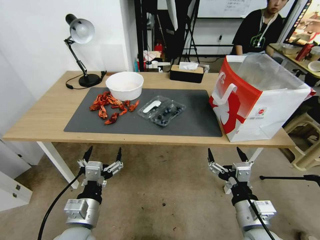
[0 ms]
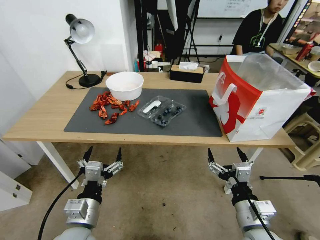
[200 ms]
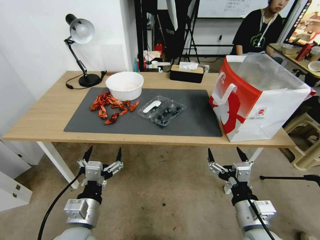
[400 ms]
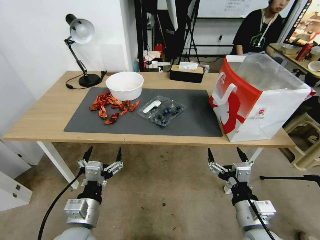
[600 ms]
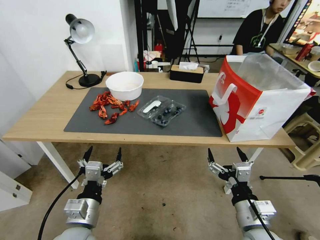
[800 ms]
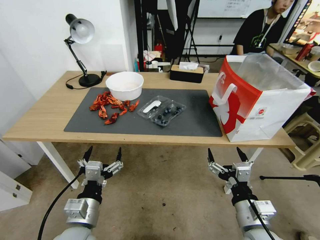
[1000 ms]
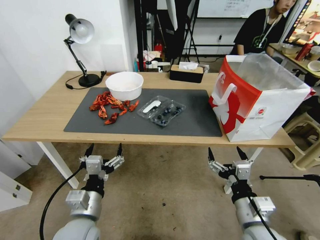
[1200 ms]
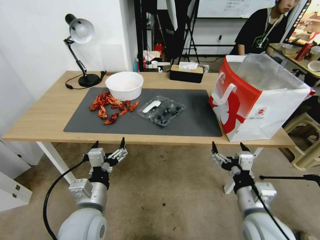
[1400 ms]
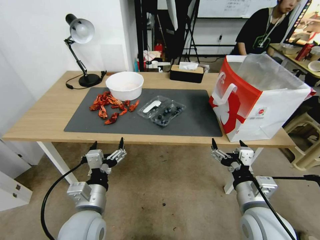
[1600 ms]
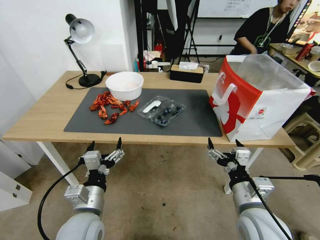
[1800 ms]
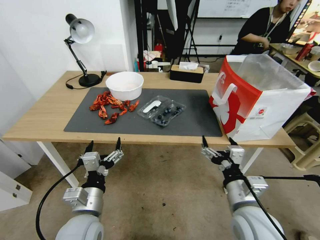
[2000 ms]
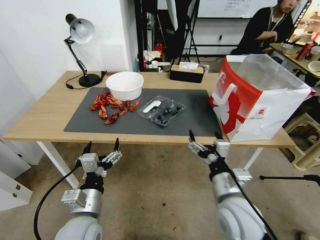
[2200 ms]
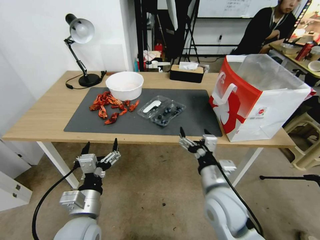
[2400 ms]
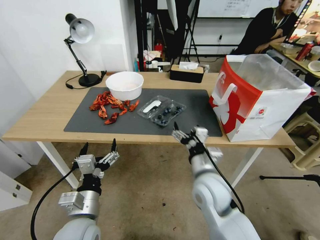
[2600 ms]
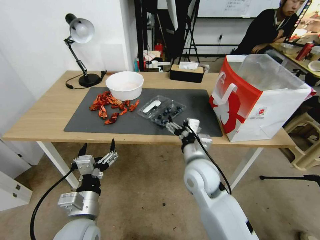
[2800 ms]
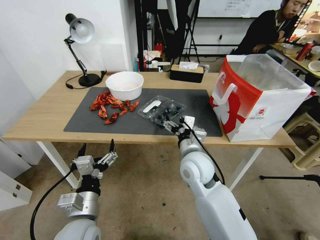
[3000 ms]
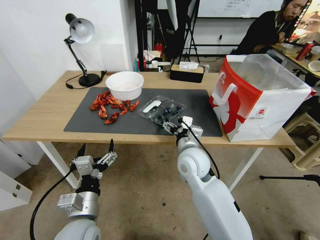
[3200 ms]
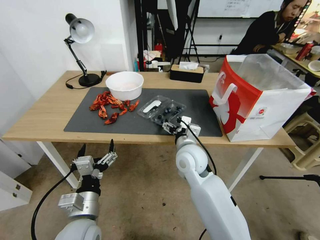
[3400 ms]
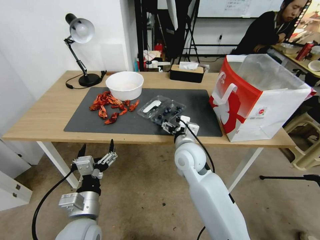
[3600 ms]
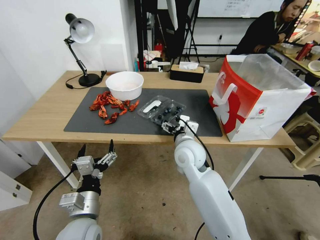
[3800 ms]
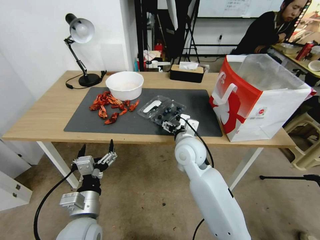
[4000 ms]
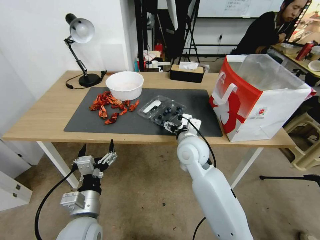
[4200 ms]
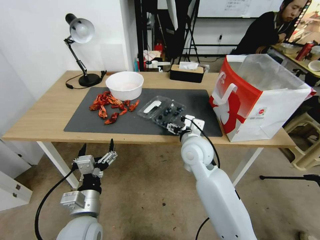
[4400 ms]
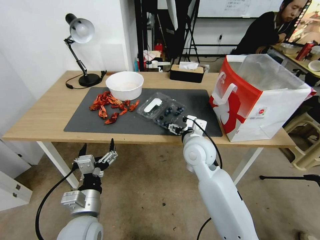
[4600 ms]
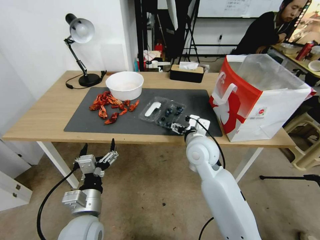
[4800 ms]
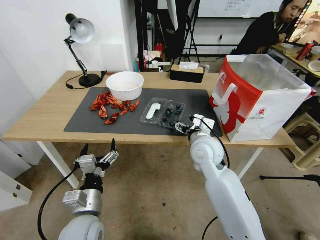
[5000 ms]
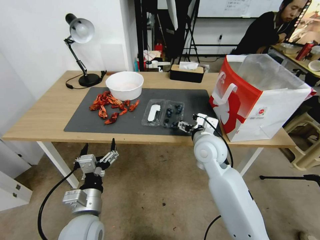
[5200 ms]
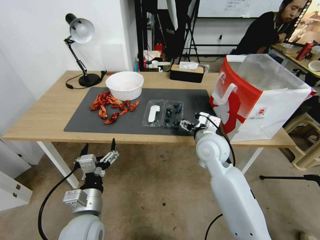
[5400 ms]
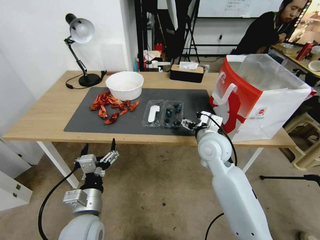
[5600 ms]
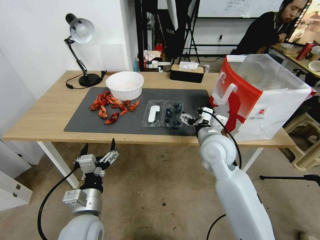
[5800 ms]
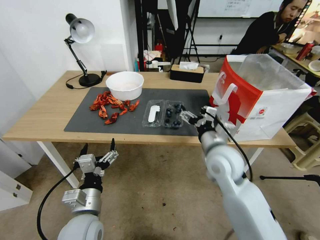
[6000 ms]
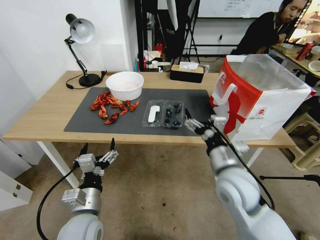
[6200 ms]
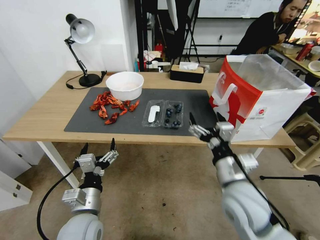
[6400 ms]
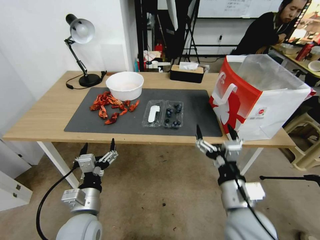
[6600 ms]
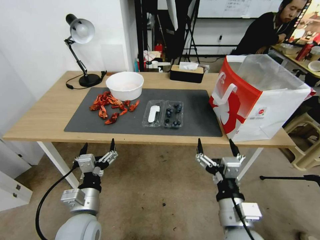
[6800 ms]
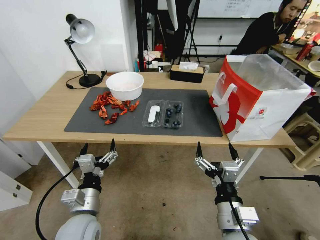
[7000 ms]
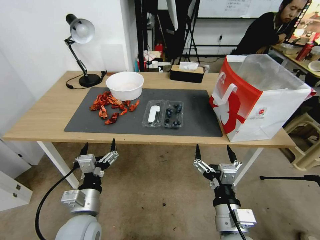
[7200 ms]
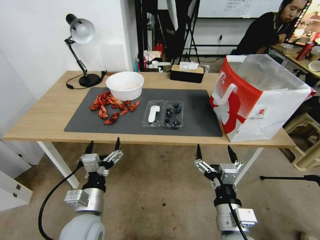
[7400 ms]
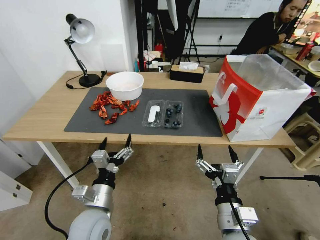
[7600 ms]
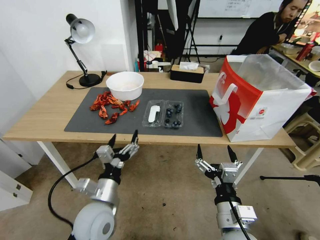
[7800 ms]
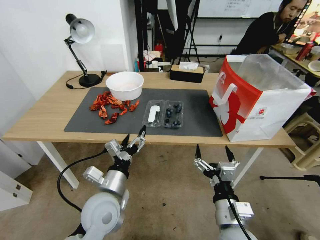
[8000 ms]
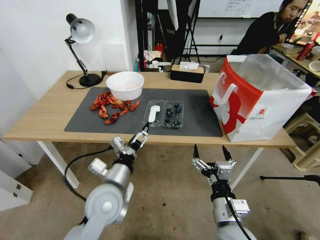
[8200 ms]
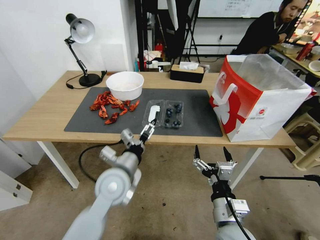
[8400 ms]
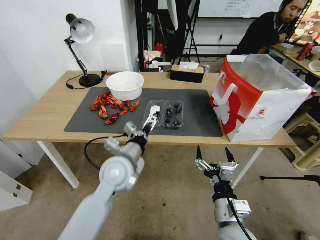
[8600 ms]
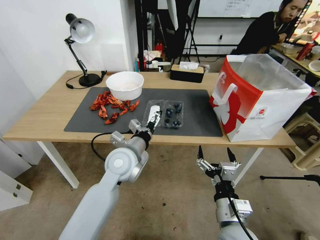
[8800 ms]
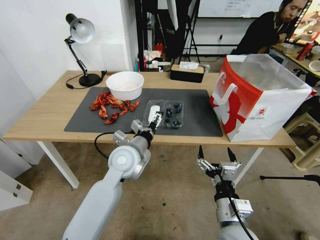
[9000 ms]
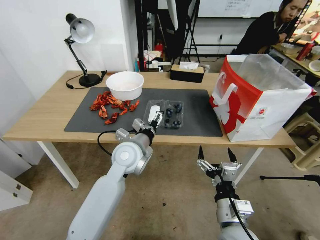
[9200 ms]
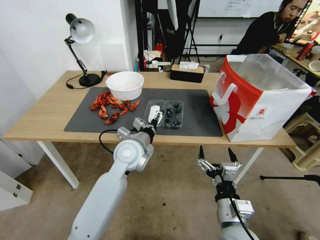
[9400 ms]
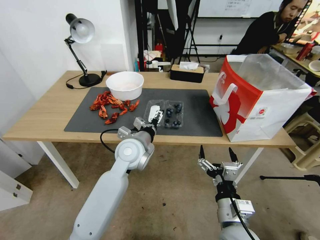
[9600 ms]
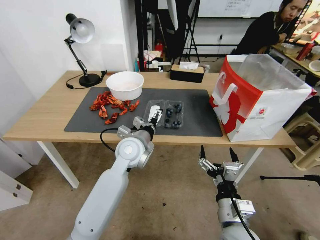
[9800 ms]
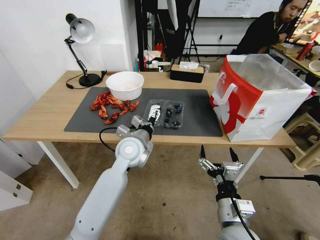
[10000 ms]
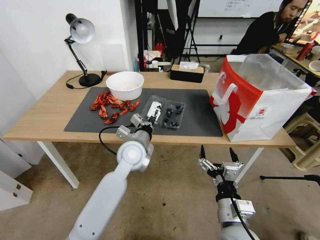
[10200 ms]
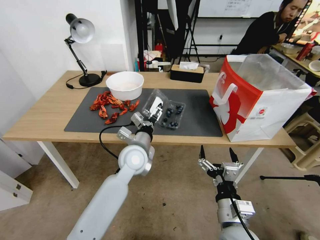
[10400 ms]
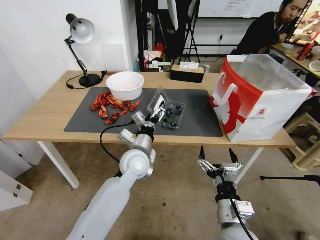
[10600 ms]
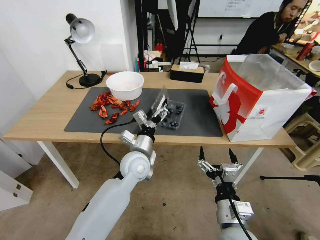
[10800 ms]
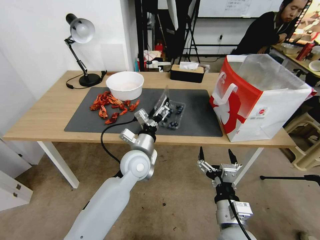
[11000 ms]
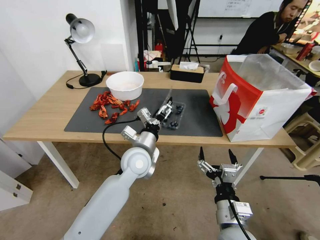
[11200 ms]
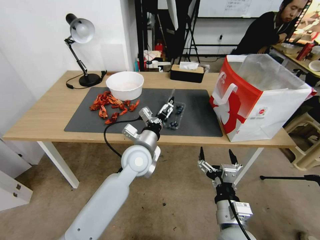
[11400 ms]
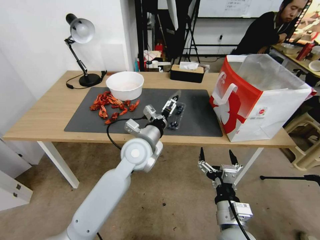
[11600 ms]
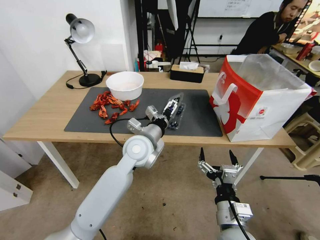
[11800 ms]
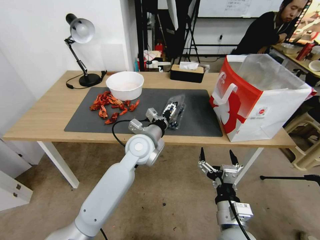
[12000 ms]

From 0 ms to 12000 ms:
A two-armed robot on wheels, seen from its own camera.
Task of the whole recording: Close the takeout container lid, then place the container into the takeout bag.
From 1600 ms to 3000 ms: The right gripper goes approximately 20 cm forward and to the left.
From 3000 ms to 4400 ms: There are only small adjustments of the grippers.
From 4400 ms to 6000 ms: The right gripper moves to the right and backward, roughly 10 cm.
From 6000 ms to 7600 ms: The right gripper is displaced backward by some 20 cm.
From 7600 ms to 9000 ms: The left gripper travels forward, to the right and upward by approximately 20 cm.
From 10400 ms to 12000 ms: The grippers stay close to where they were, moving slightly.

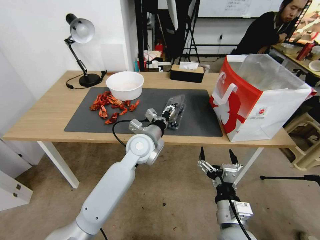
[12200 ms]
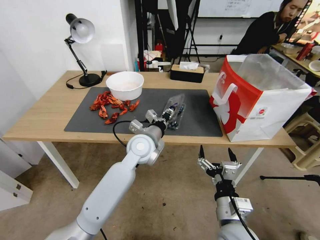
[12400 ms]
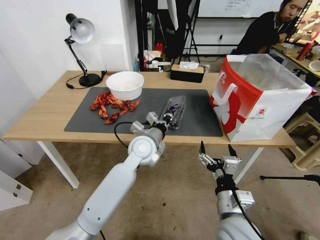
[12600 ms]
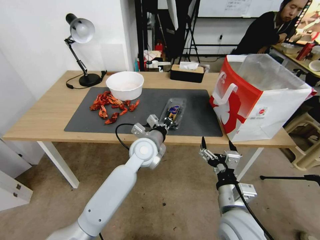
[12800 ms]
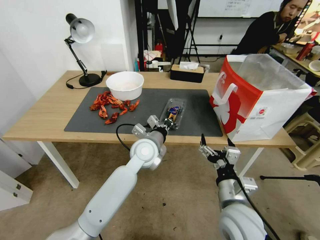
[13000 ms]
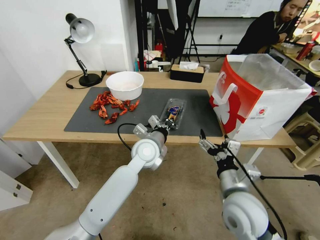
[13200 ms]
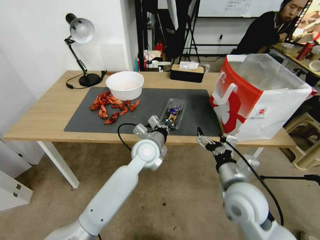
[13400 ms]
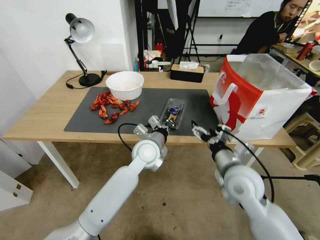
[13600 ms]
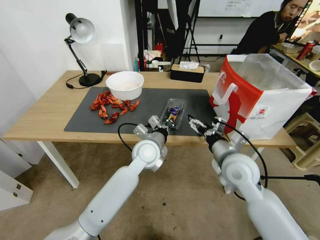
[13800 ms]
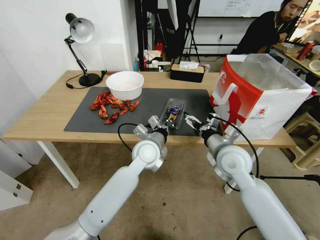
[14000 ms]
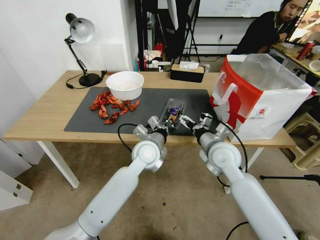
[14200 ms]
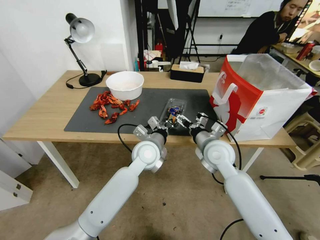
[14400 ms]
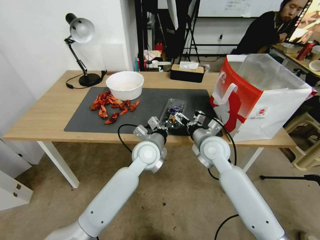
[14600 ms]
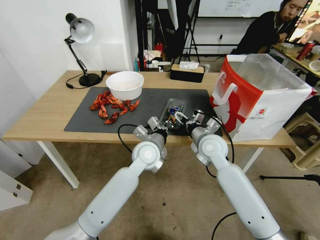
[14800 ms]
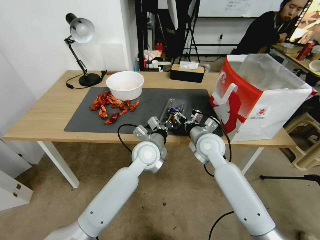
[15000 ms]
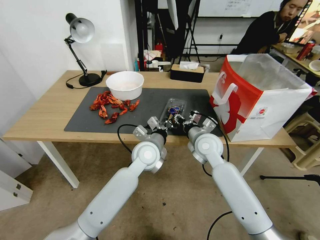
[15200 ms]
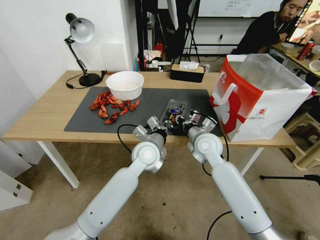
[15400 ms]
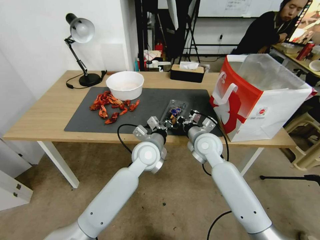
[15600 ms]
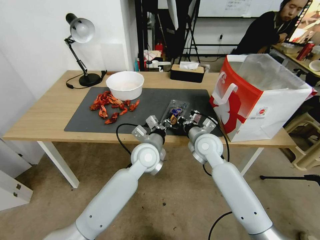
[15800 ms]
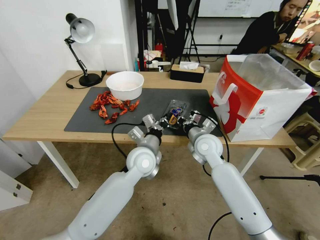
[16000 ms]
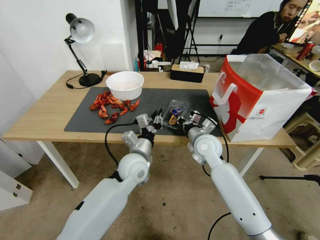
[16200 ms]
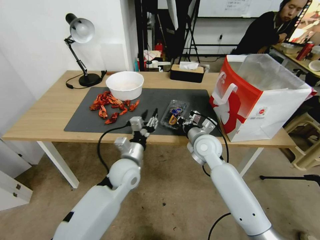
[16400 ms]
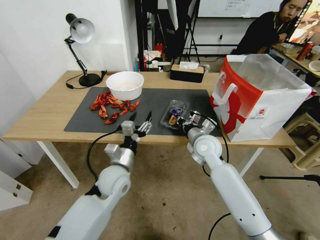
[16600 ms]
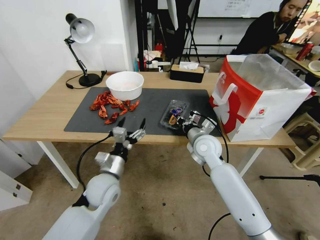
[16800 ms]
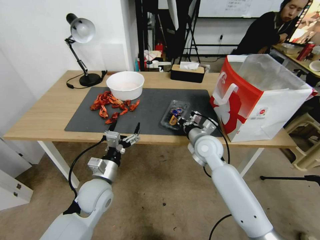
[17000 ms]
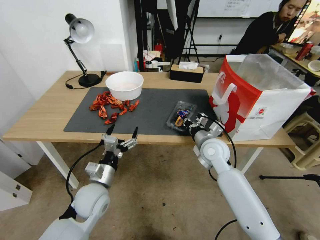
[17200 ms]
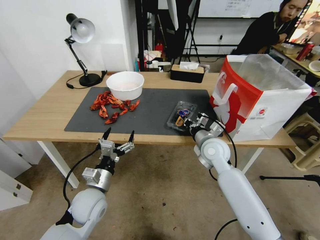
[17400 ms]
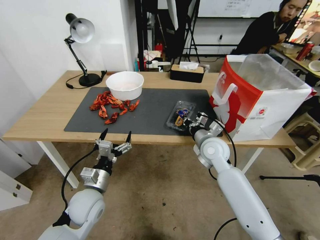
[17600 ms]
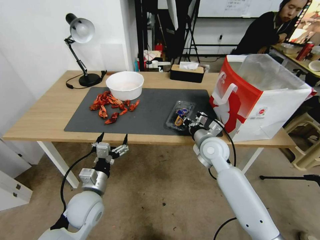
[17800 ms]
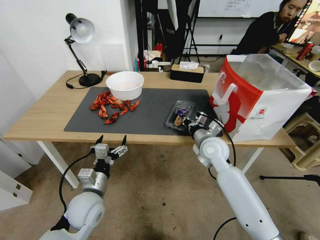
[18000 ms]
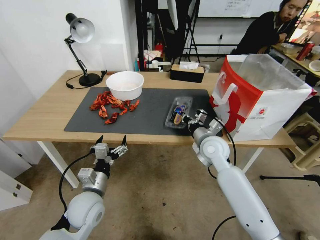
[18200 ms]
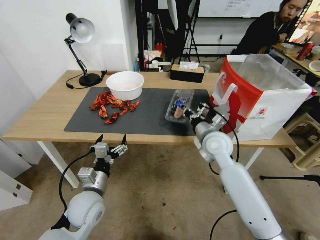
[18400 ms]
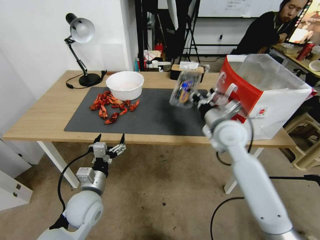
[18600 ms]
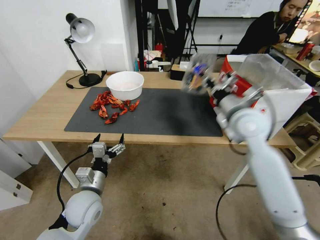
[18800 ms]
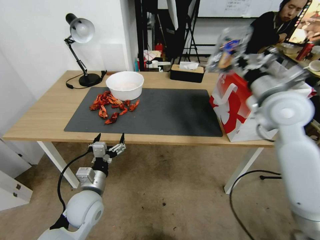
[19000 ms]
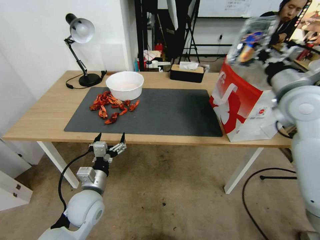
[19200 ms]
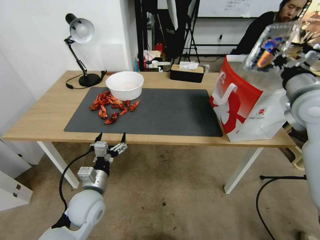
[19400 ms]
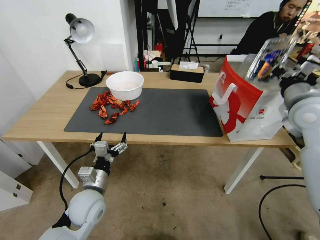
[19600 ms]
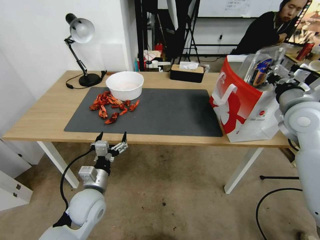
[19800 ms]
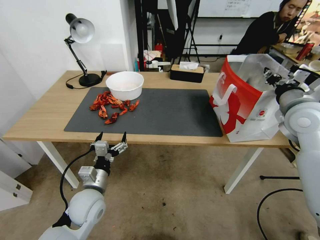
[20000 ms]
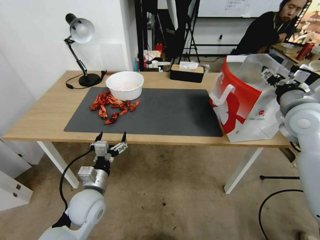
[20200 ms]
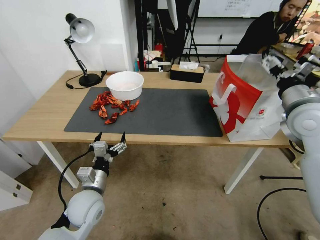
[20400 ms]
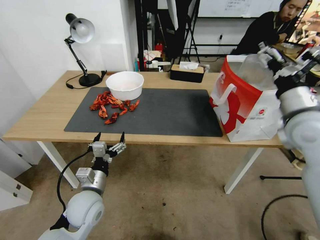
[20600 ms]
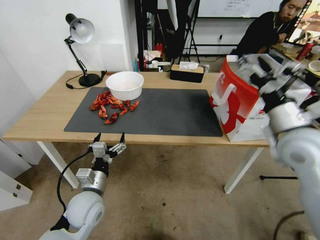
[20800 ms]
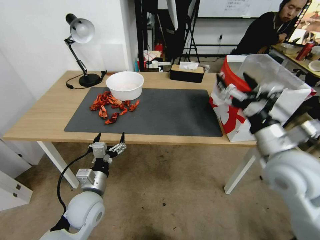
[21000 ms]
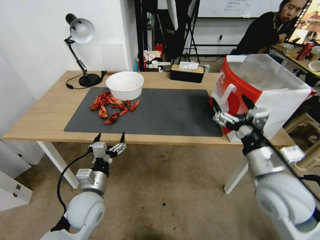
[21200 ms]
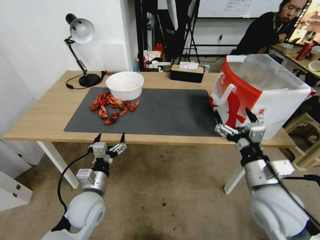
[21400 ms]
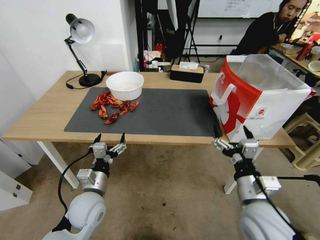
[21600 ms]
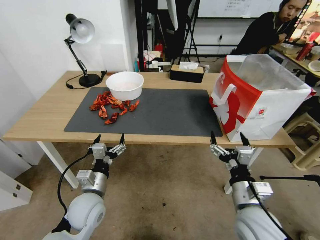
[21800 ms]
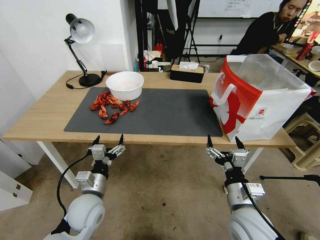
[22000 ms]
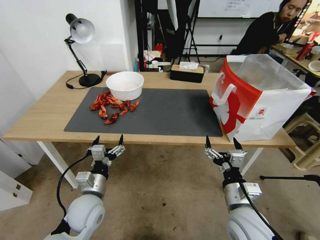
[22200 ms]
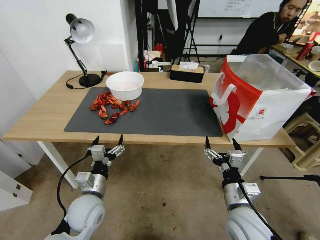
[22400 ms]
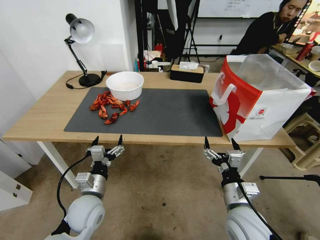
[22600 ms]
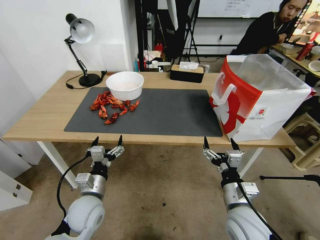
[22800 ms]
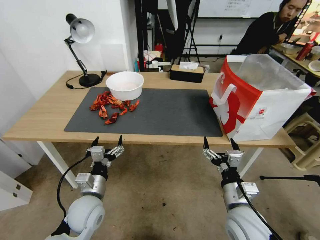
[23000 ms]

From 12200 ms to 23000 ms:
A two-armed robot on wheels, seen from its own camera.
Task of the whole recording: Close the takeout container lid, then place the container into the takeout bag.
From 12200 ms to 13800 ms: The right gripper goes some 20 cm forward and upward; the left gripper closes.
From 13800 ms to 15200 ms: The right gripper is displaced forward and to the left by roughly 10 cm, and closes.
From 15200 ms to 16800 ms: The right gripper closes up. Meanwhile the left gripper travels to the left and backward by approximately 15 cm, and opens up.
From 16800 ms to 18400 ms: The right gripper shifts by approximately 5 cm. Meanwhile the left gripper ends up about 5 cm from where it was.
From 18400 ms to 20000 ms: The right gripper travels to the right and upward by approximately 25 cm.
From 20000 ms to 21400 ms: The right gripper moves backward, downward and to the left, about 25 cm, and opens its fingers.
From 21400 ms to 23000 ms: The right gripper shifts some 10 cm downward.
